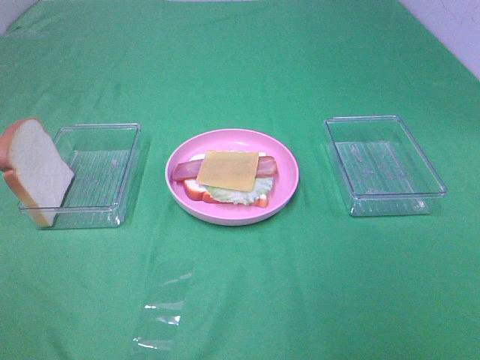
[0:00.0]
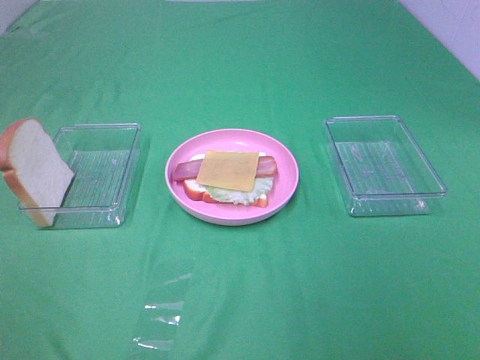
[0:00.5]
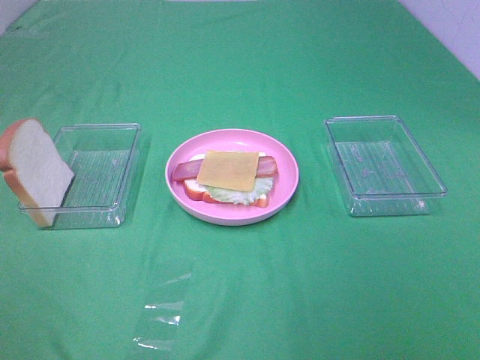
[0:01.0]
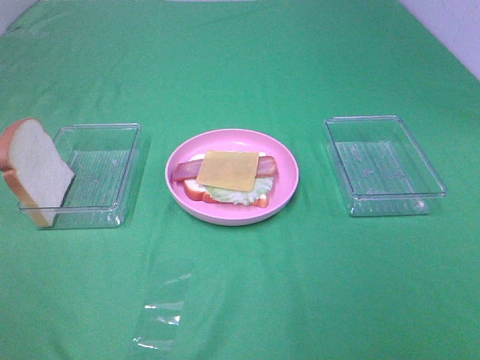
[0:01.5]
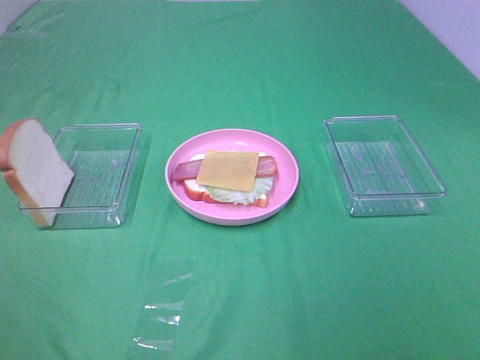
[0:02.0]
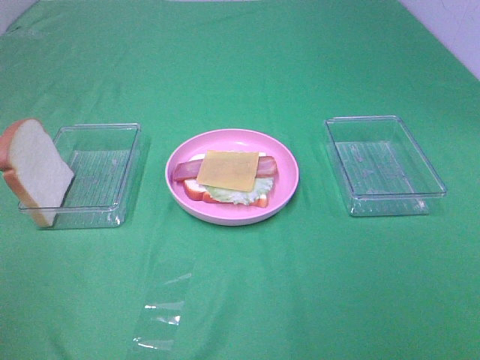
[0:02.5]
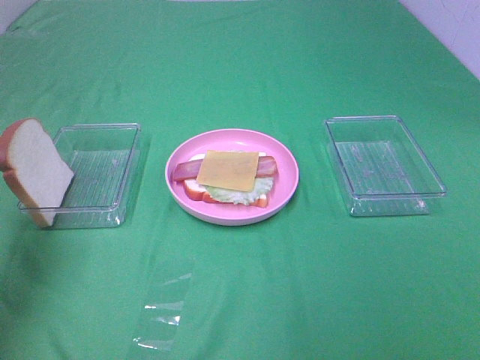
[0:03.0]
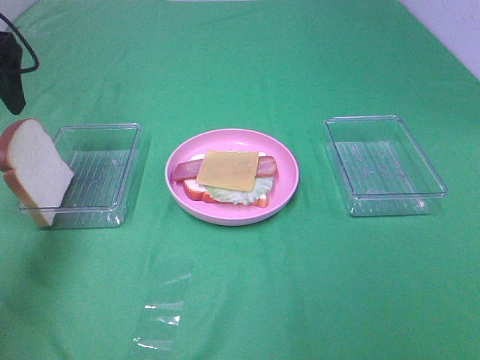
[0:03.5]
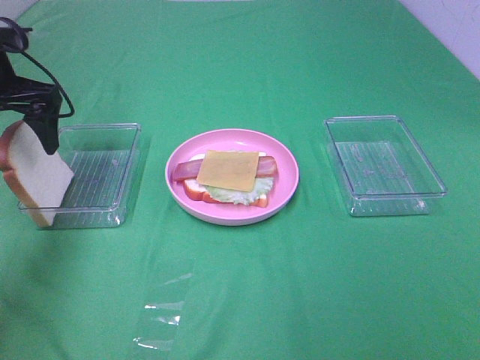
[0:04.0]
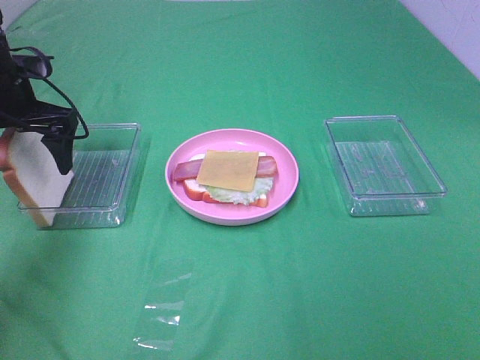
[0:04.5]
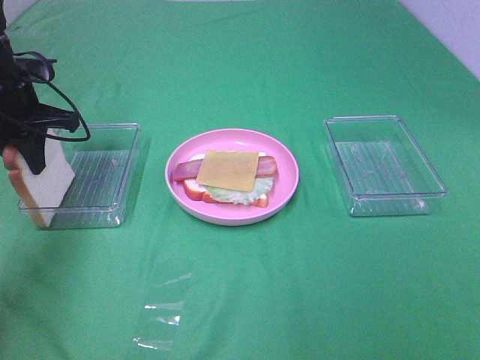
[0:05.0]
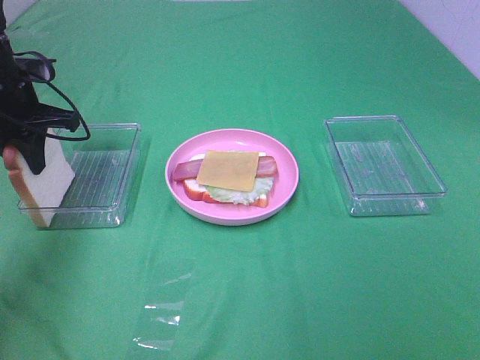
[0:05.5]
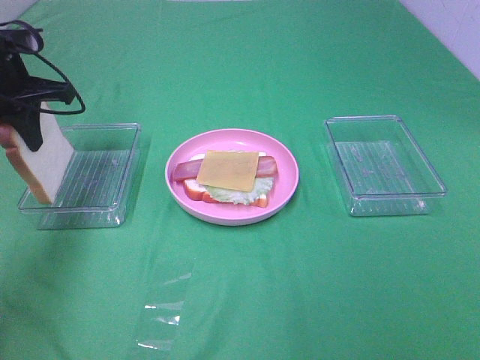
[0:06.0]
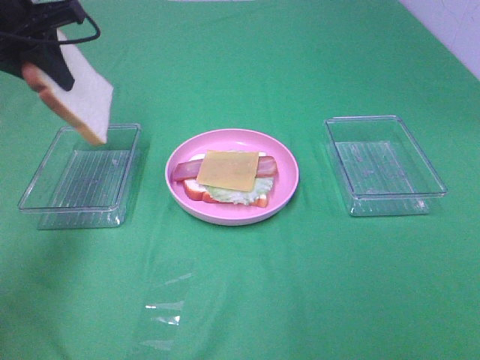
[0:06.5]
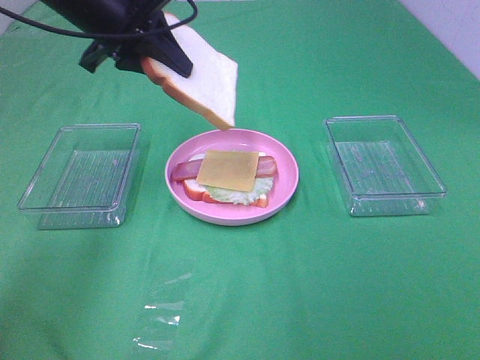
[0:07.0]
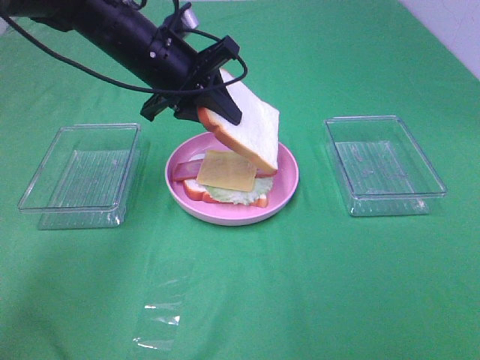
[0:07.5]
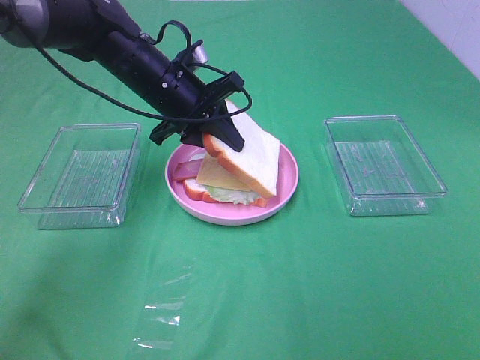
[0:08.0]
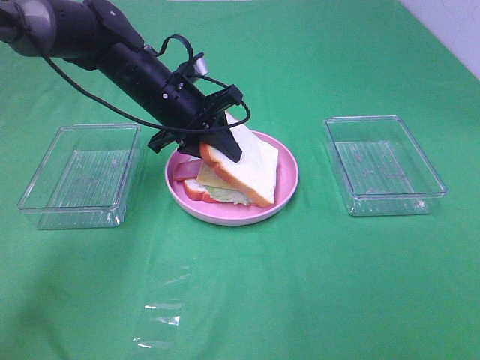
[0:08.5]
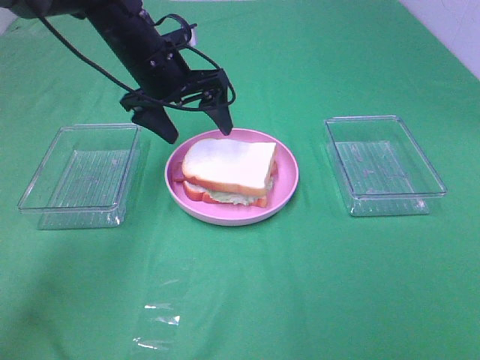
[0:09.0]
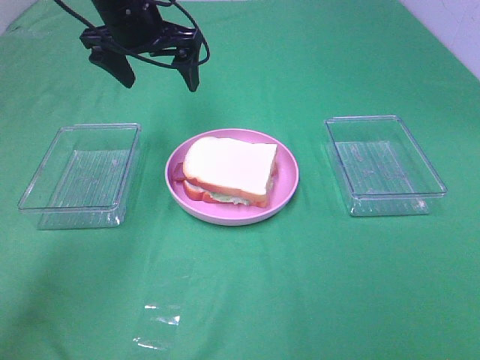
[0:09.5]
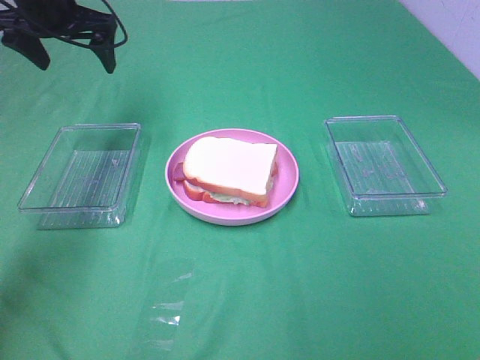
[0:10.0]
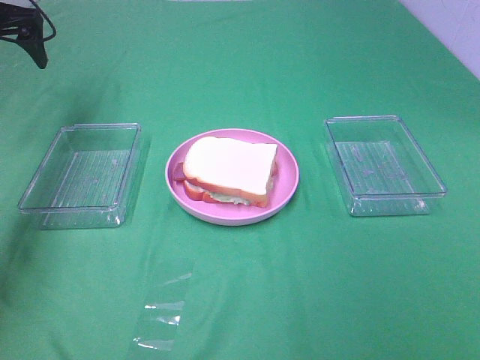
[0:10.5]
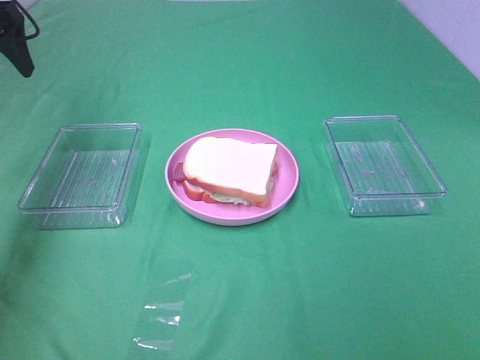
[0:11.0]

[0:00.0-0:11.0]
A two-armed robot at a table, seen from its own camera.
Task of the whole recording: Make sandwiches.
Step, 0:00.0 to 0:05.0: Left hand:grab the bread slice.
Step, 0:05.5 to 0:09.0: Left hand:place the bread slice on the cheese slice.
0:02.0 to 0:03.5: The left gripper goes about 35 cm forward.
0:03.5 to 0:05.5: The left gripper heads downward, covering approximately 10 cm, and closes up.
0:05.5 to 0:07.5: The left gripper shifts approximately 15 cm to the right.
0:07.5 to 0:09.0: The left gripper opens.
0:09.0 to 0:11.0: The left gripper moves to the left and upward, approximately 25 cm.

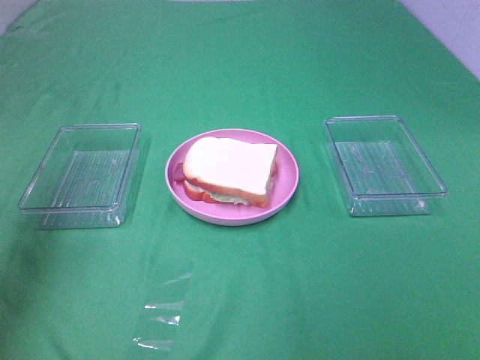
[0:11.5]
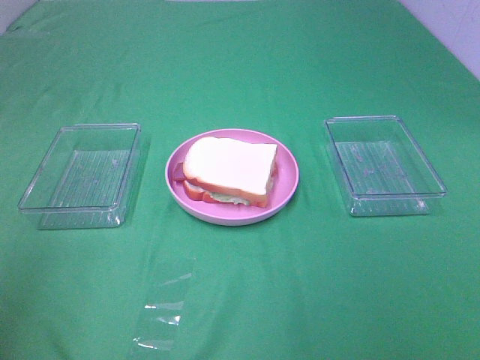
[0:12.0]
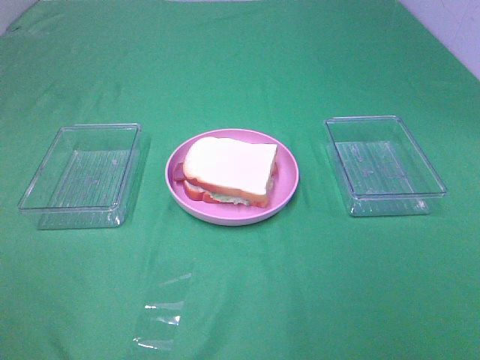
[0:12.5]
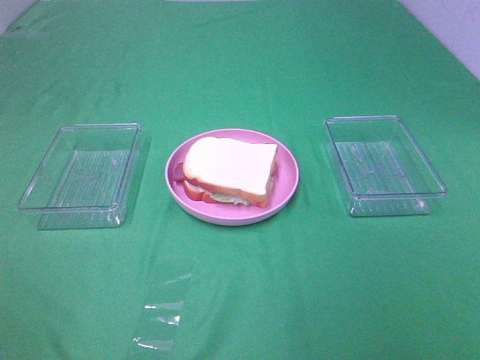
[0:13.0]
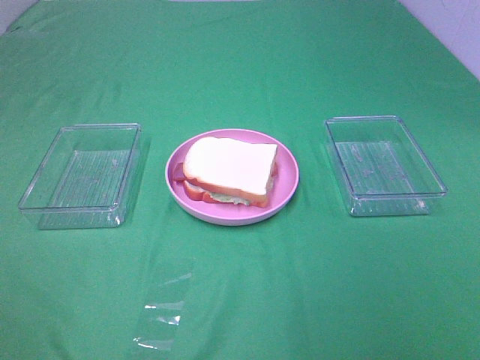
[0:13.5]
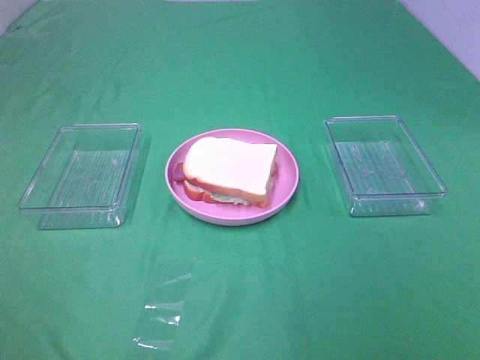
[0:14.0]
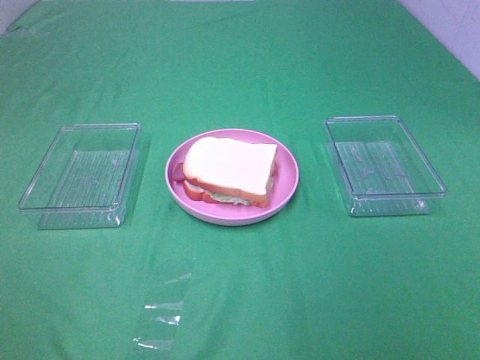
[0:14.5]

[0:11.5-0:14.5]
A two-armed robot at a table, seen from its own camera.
Task of the whole recording: Make sandwiches.
0:11.5 to 0:13.0: The left gripper is displaced backward by some 25 cm.
0:13.0 to 0:14.5: Both grippers stay about where they are.
